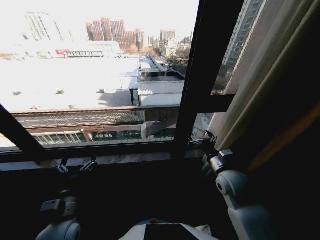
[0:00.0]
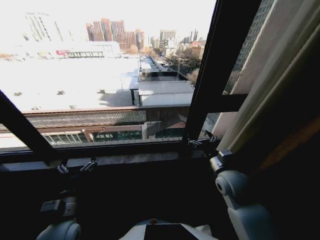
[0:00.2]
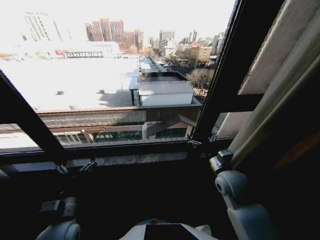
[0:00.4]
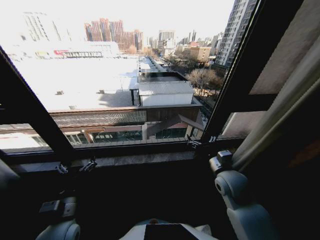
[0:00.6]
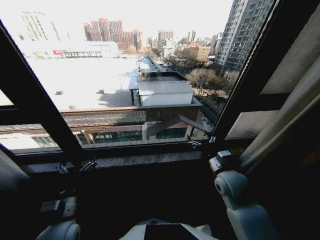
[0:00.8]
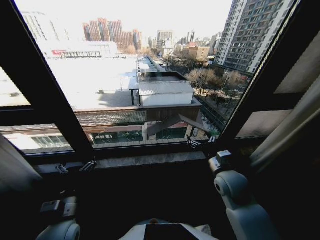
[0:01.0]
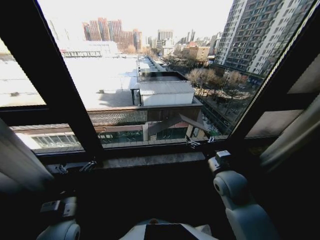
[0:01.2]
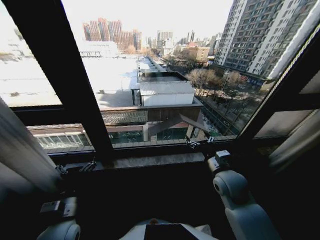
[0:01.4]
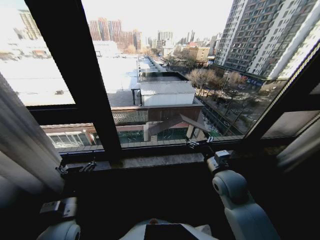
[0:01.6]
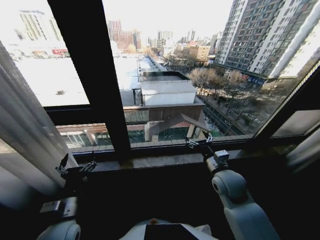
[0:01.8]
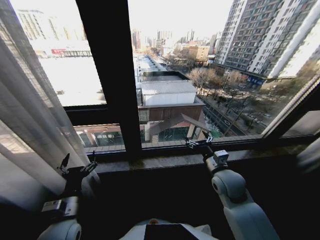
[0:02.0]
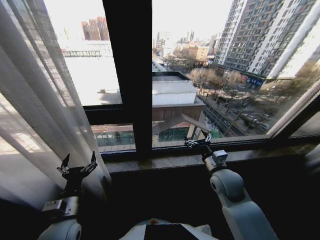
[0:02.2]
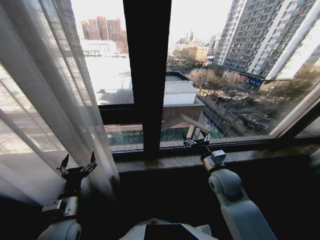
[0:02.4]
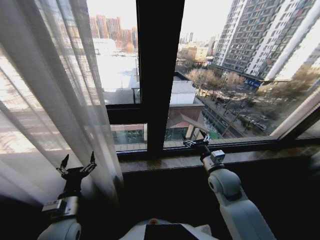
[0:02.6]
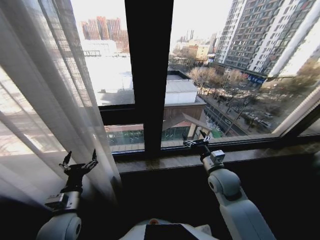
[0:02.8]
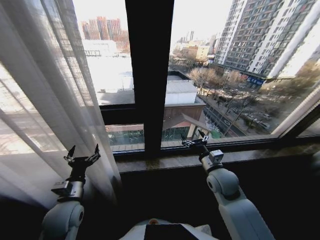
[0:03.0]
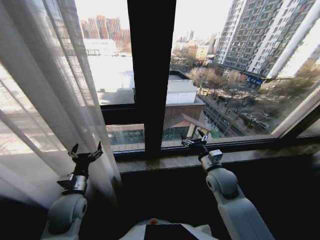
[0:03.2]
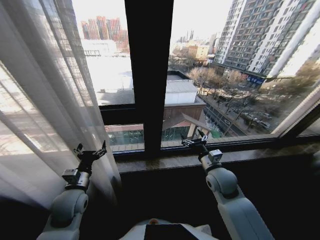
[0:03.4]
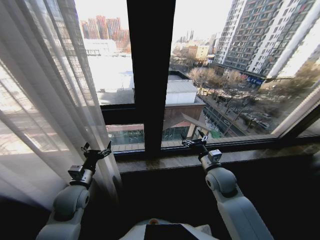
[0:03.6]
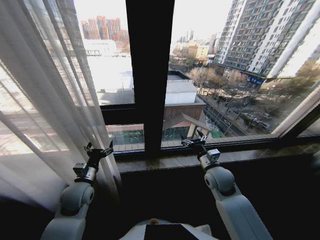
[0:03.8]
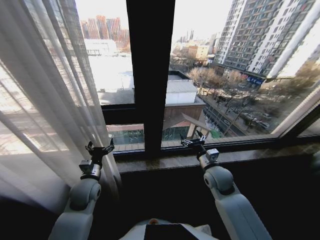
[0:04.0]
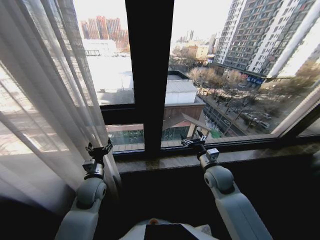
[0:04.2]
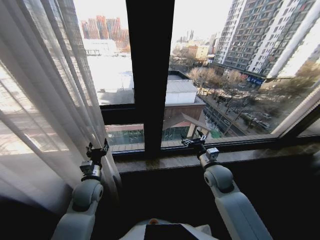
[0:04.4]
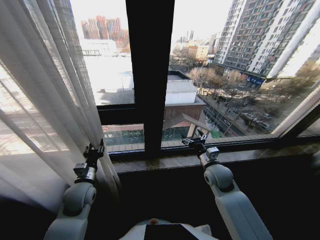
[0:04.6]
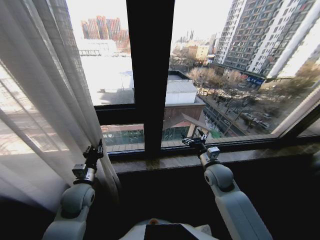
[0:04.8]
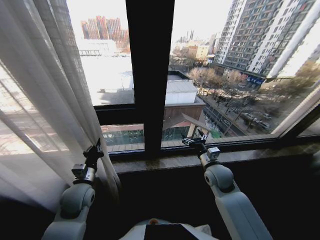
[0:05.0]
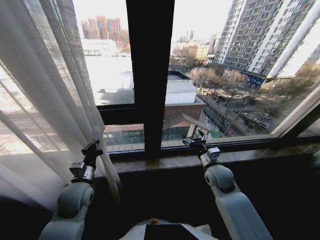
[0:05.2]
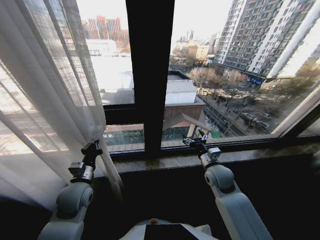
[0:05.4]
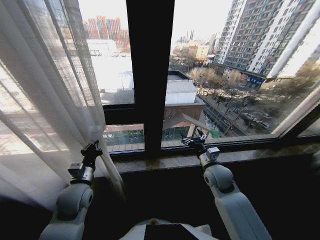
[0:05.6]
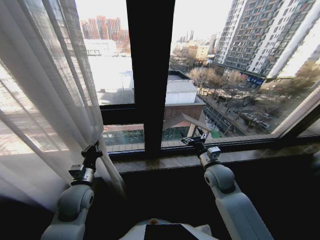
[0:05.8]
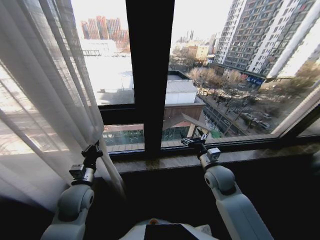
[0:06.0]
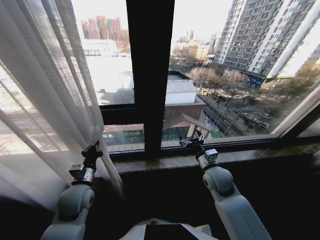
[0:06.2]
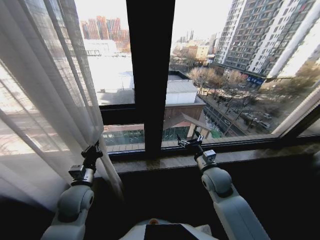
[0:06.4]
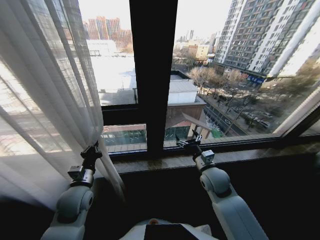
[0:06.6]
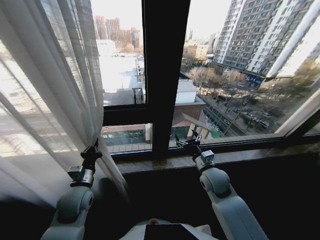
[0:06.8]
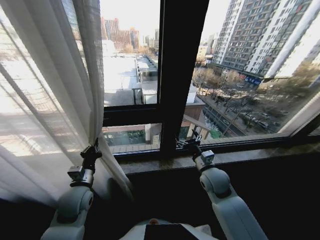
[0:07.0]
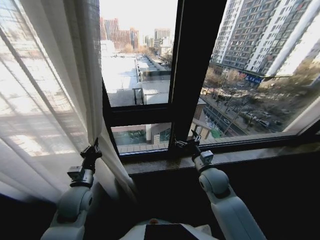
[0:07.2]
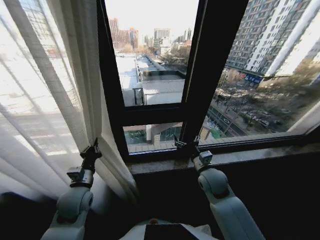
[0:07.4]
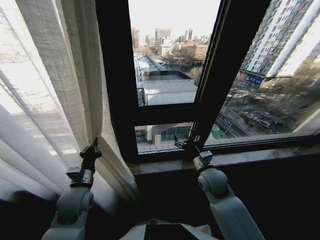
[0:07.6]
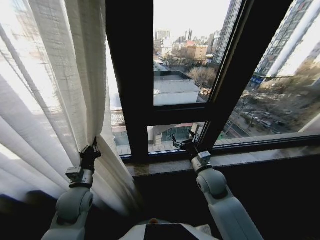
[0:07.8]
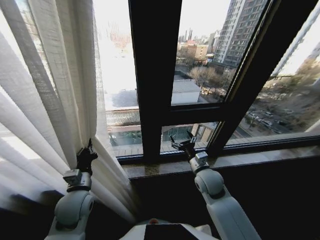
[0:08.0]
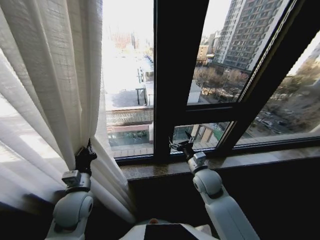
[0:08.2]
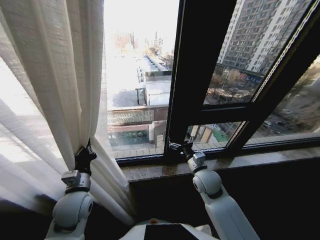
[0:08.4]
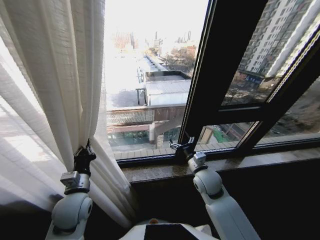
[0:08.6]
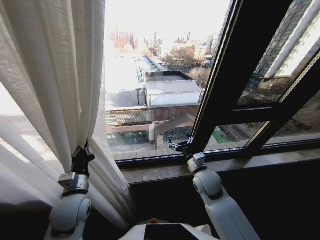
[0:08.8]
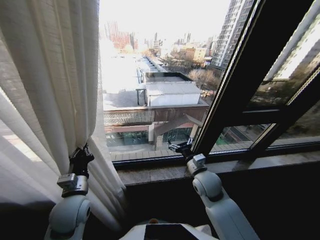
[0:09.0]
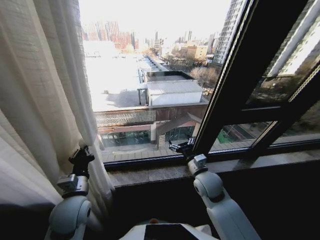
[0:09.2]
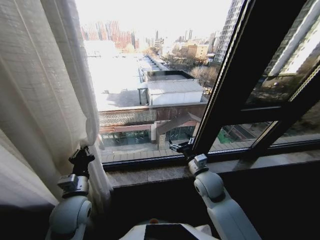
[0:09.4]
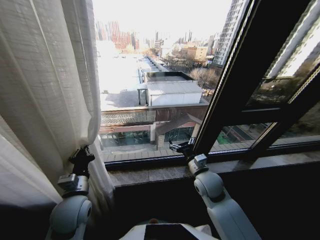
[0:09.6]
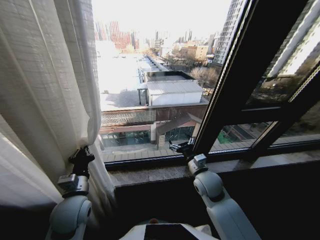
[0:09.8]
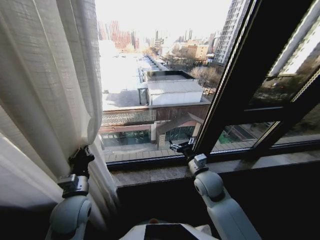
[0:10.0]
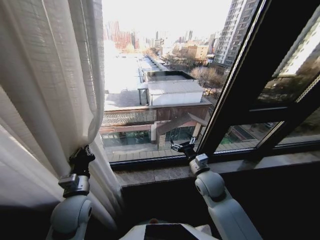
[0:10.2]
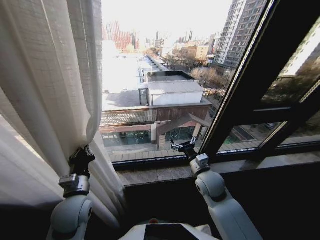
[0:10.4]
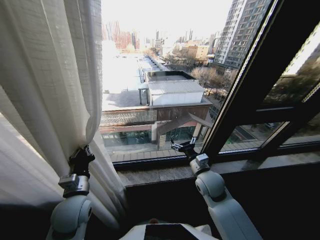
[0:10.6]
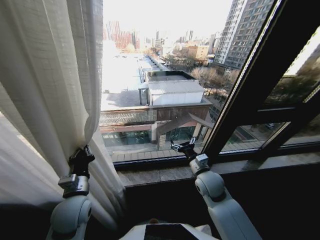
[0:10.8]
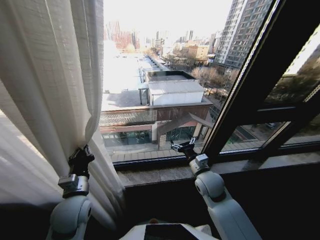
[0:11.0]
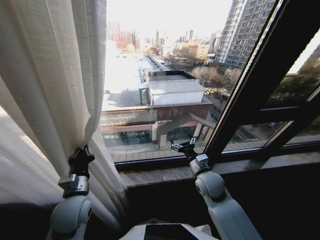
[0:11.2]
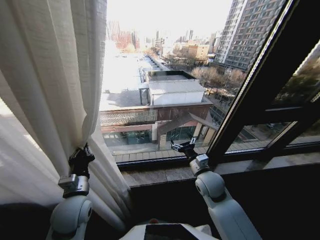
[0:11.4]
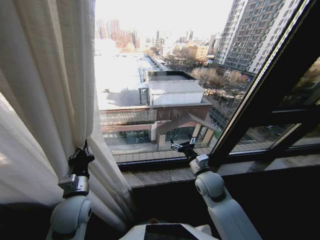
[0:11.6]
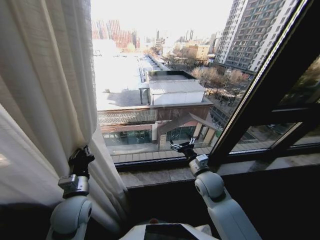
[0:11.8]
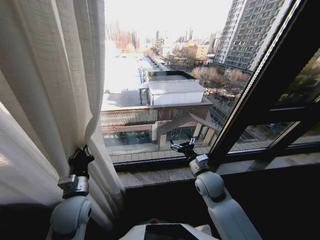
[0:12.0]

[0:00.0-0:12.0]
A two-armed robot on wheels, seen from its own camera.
Task of the whole recording: Open the curtains by pulling them apart, changing their state from closed to fully open.
0:03.0 to 0:04.4: The left gripper travels forward by some 10 cm.
0:04.4 to 0:06.0: The left gripper closes up.
0:10.4 to 0:12.0: Both grippers stay about where they are.

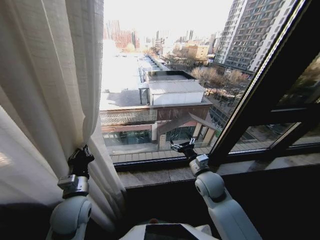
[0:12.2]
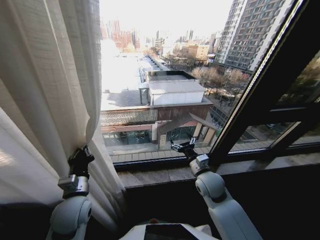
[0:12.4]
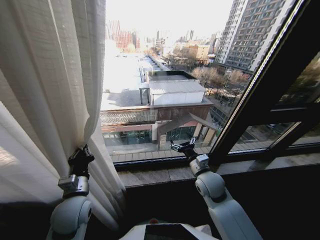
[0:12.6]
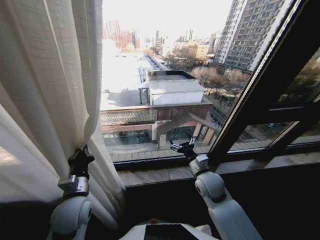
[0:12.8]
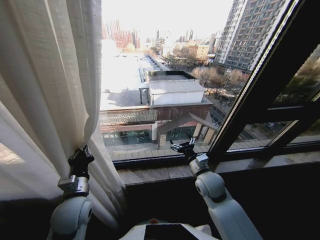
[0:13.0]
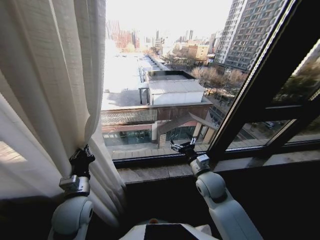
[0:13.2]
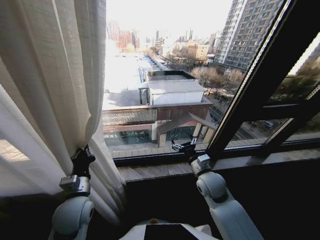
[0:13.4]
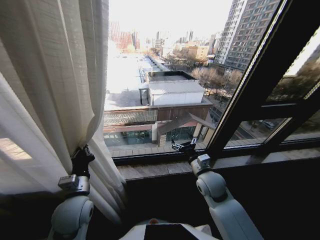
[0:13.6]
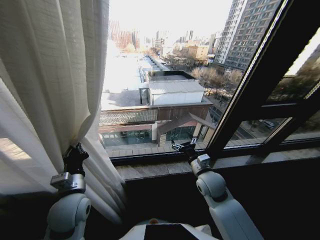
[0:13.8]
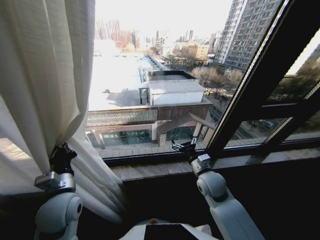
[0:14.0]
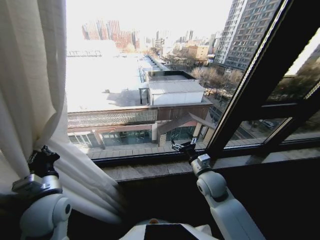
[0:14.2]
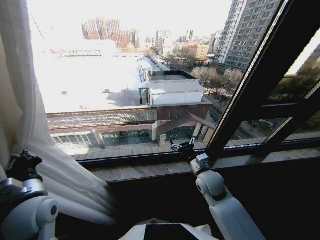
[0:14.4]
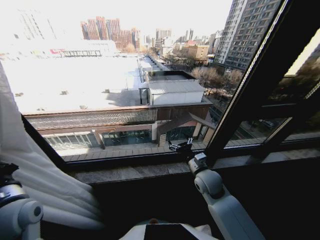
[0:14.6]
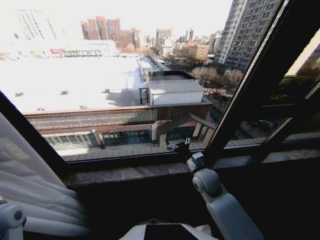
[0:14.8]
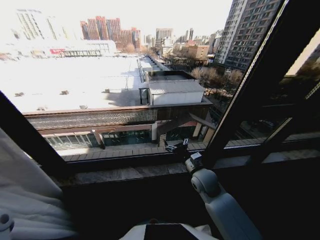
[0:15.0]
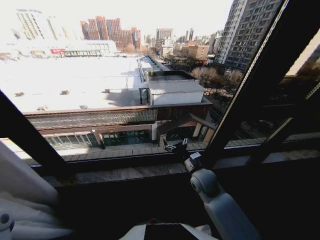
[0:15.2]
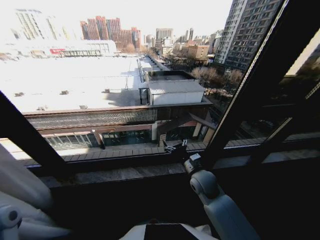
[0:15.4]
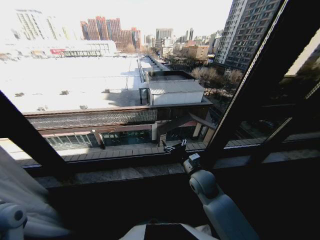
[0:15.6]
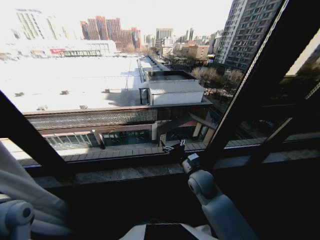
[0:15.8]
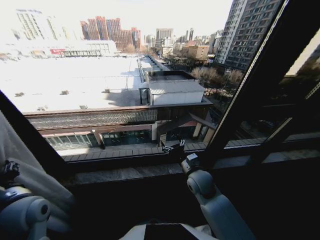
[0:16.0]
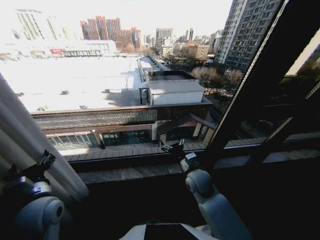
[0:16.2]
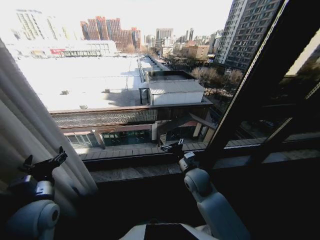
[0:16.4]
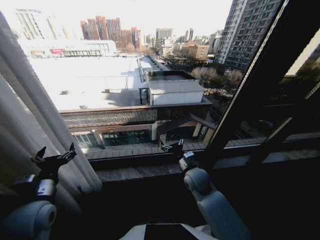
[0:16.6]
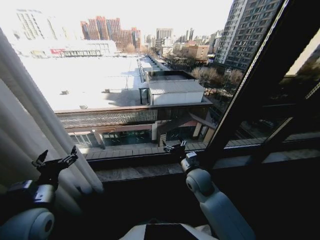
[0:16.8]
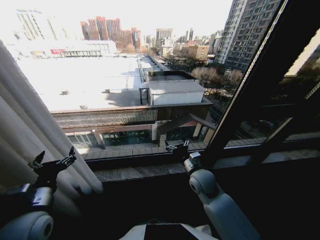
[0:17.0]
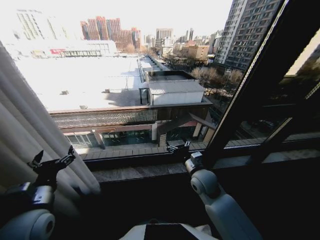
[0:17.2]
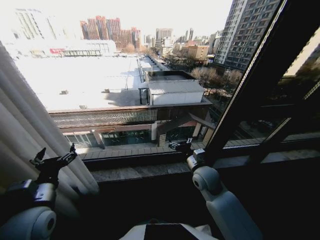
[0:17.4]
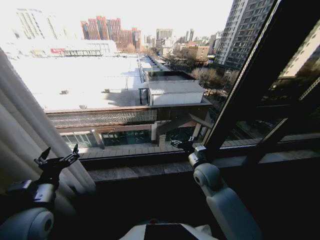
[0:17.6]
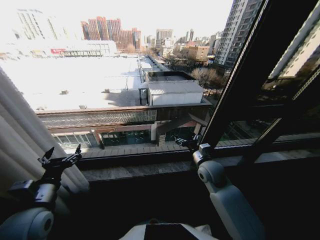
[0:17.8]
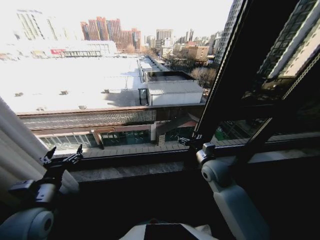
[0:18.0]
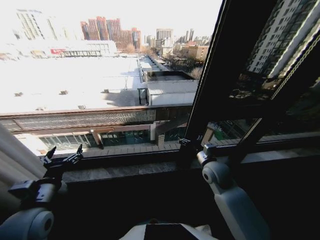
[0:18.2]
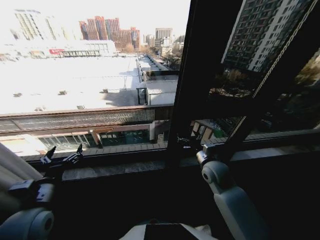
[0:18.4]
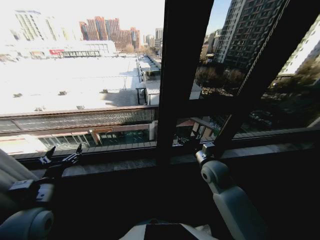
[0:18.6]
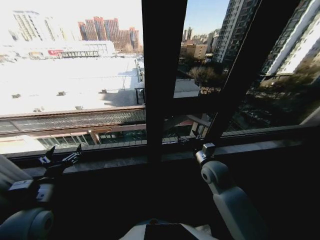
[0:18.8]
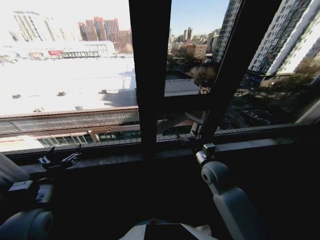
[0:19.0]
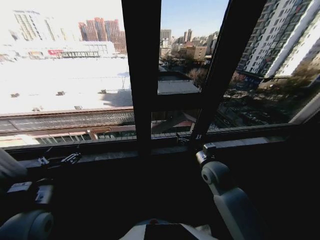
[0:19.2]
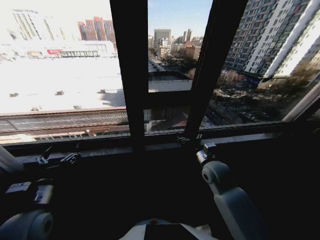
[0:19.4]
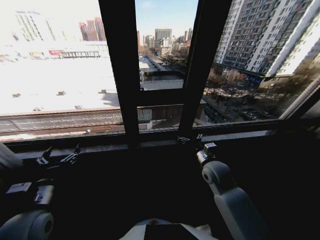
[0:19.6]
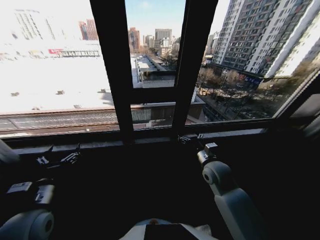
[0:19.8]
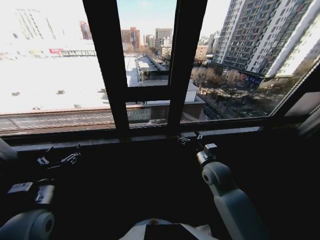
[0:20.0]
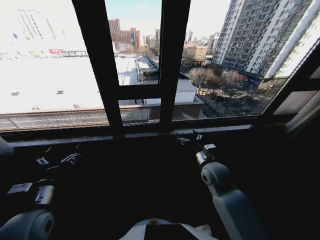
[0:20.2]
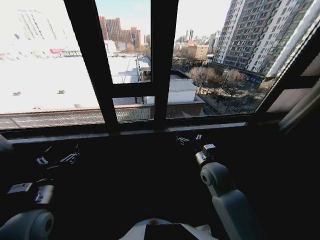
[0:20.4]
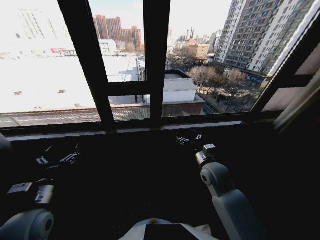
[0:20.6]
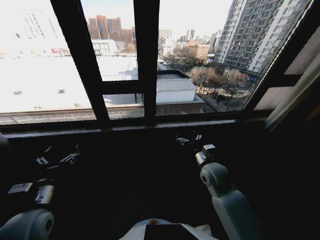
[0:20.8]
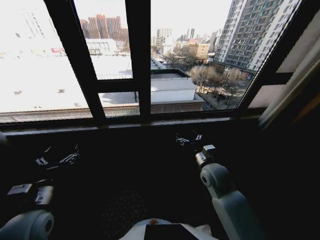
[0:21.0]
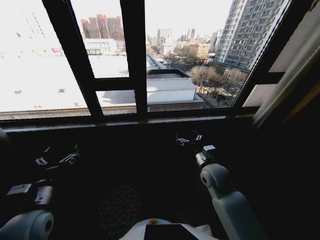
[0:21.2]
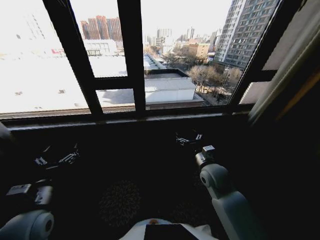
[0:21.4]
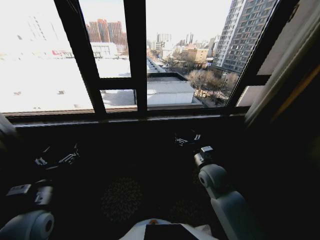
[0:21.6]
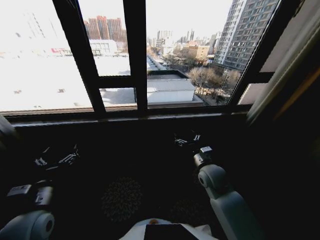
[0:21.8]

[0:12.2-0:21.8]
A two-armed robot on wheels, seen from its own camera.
Task of the whole recording: Open the curtains by pulling them apart, changing their state from closed to fully open.
0:13.8 to 0:15.4: The left gripper moves to the left, some 15 cm.
0:15.4 to 0:17.0: The left gripper goes some 10 cm to the right, and opens its fingers.
0:17.0 to 0:18.6: The right gripper shifts some 5 cm to the right.

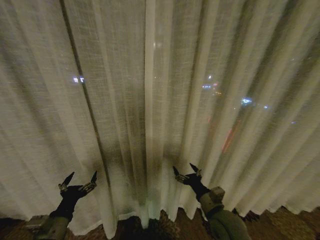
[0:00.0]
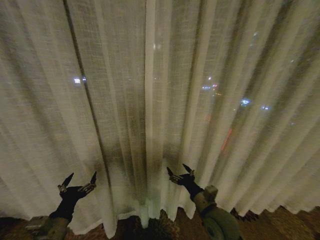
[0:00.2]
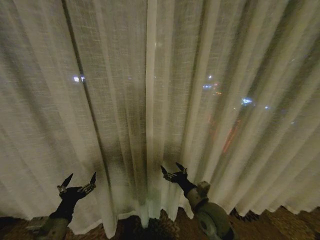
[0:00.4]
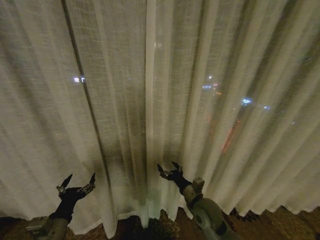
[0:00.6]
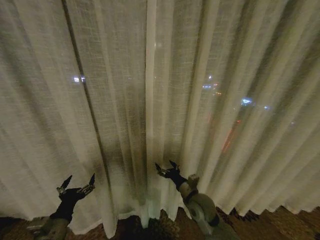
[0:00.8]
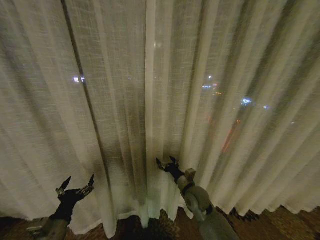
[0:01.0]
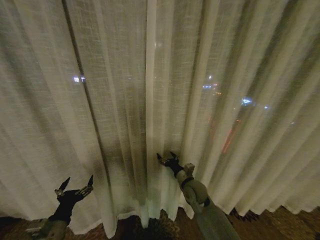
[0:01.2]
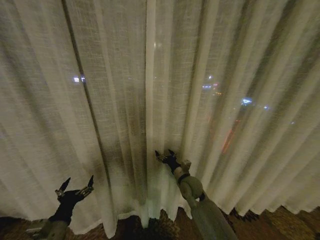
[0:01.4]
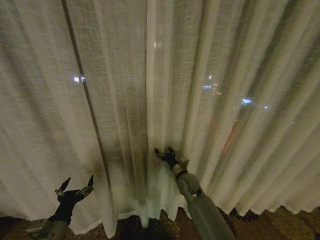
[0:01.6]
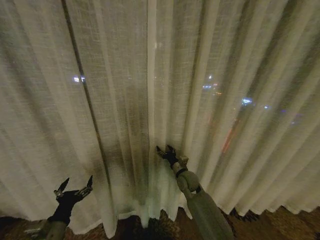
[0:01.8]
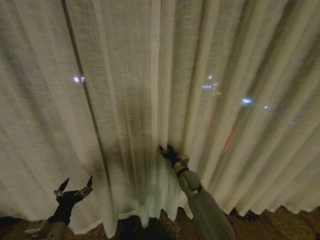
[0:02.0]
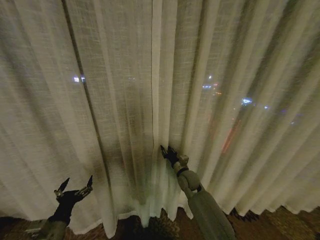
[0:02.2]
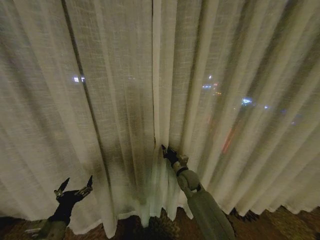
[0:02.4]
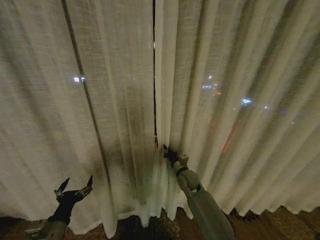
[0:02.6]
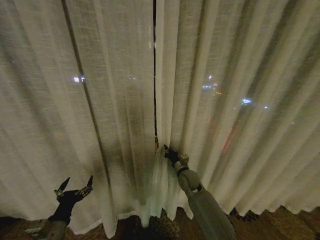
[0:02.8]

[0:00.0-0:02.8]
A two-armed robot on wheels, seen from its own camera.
Task of the whole recording: Open the curtains by pulling them apart, changing their state from closed to fully open.
0:00.0 to 0:01.4: The right gripper heads forward and to the left, covering about 15 cm.
0:01.4 to 0:02.8: The right gripper closes up.
